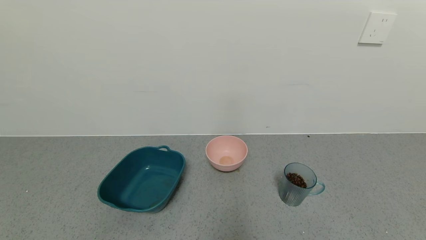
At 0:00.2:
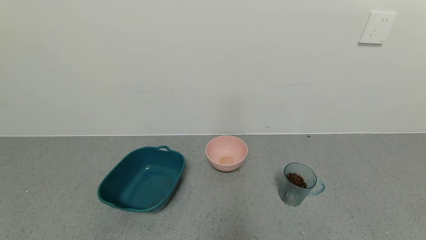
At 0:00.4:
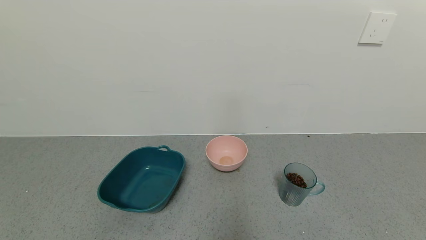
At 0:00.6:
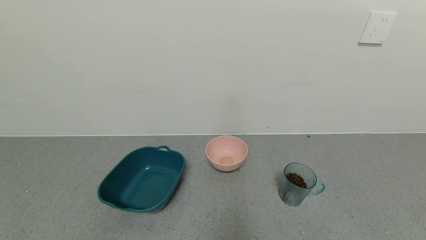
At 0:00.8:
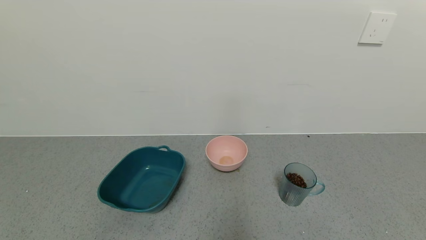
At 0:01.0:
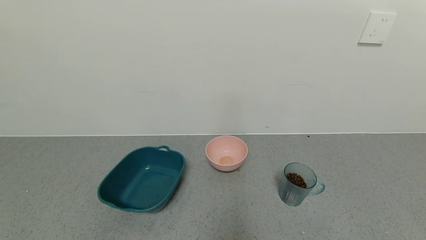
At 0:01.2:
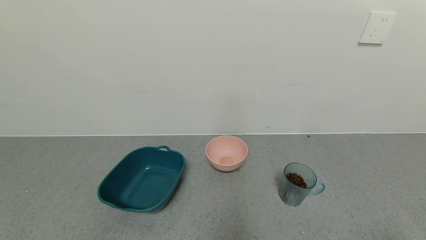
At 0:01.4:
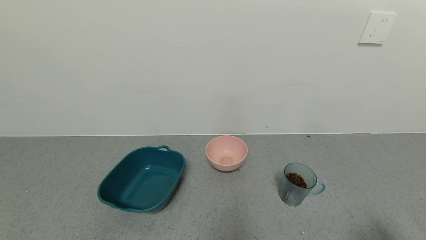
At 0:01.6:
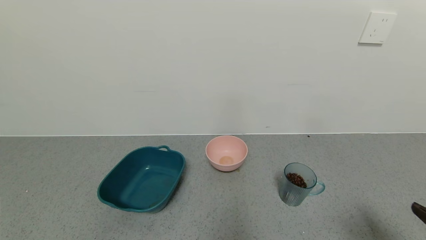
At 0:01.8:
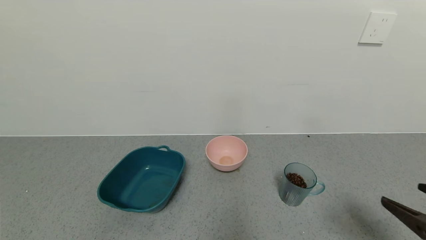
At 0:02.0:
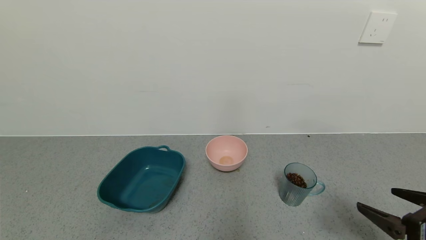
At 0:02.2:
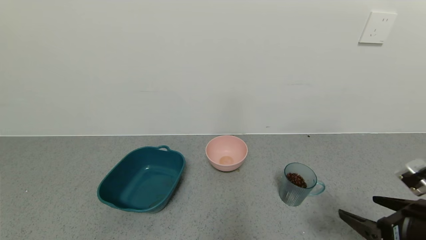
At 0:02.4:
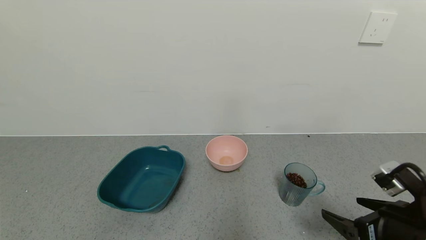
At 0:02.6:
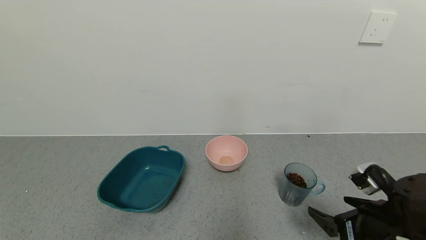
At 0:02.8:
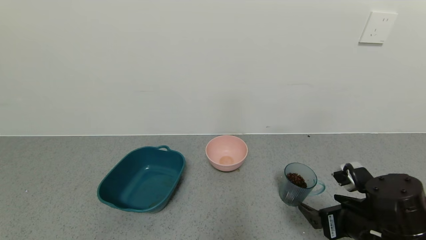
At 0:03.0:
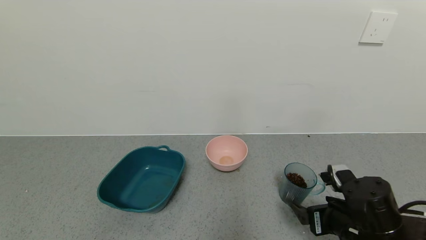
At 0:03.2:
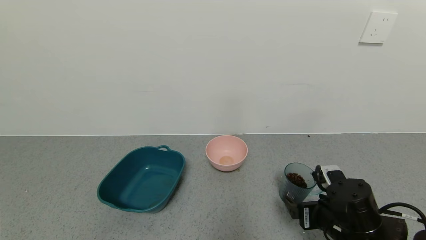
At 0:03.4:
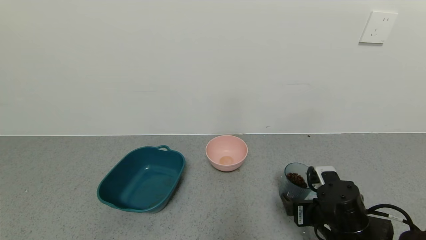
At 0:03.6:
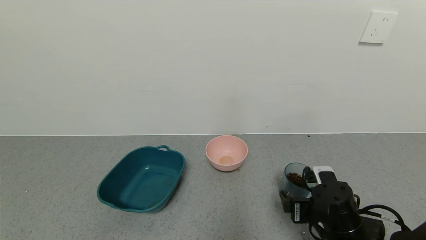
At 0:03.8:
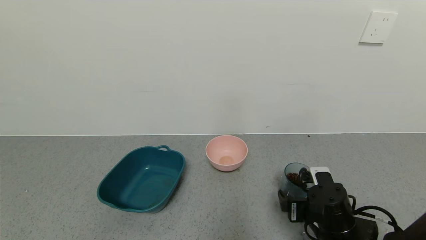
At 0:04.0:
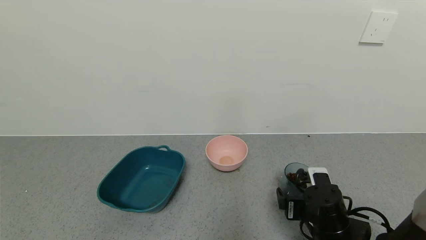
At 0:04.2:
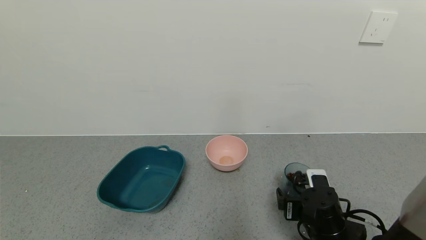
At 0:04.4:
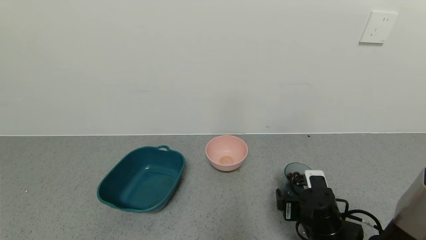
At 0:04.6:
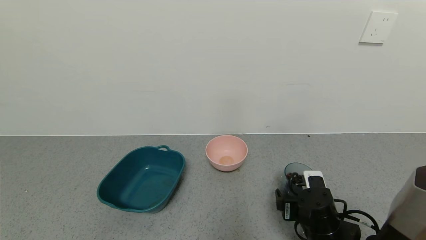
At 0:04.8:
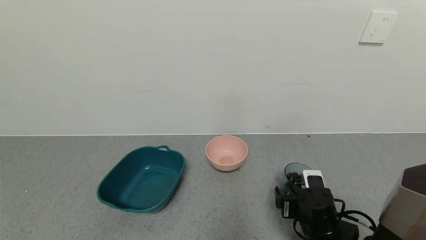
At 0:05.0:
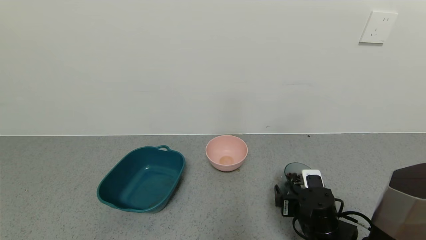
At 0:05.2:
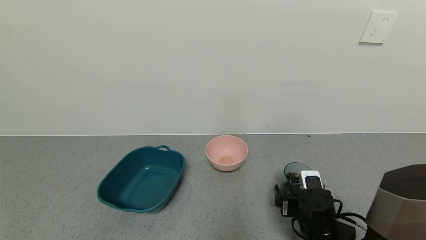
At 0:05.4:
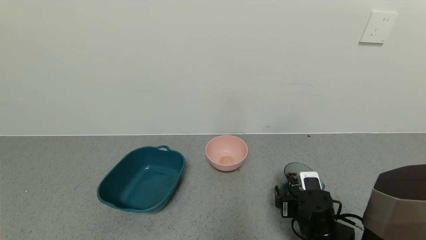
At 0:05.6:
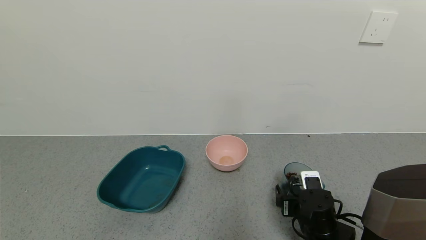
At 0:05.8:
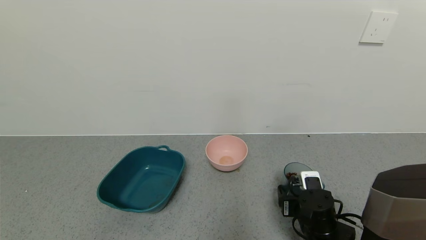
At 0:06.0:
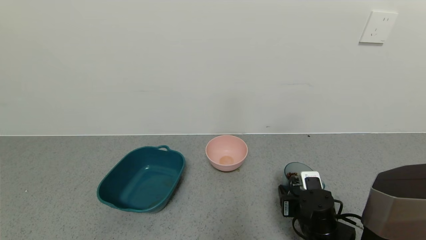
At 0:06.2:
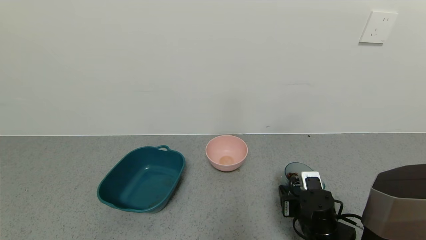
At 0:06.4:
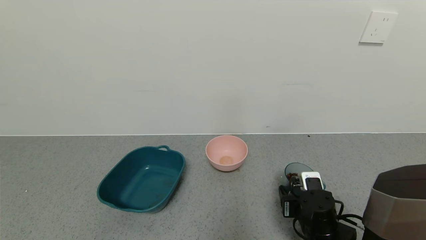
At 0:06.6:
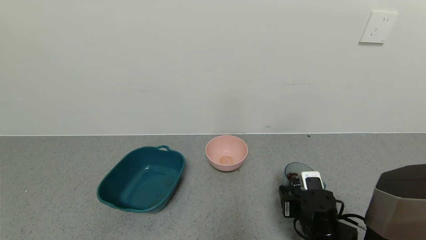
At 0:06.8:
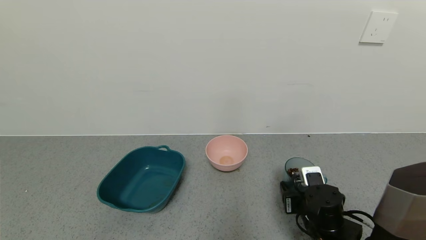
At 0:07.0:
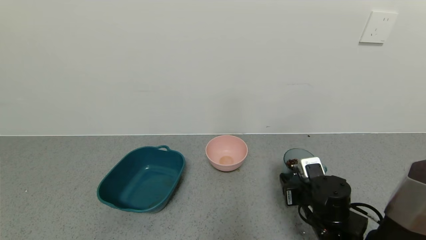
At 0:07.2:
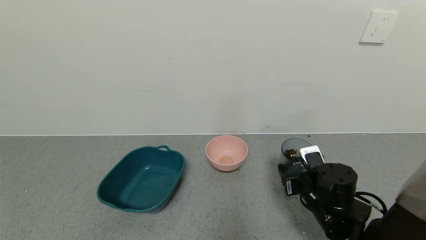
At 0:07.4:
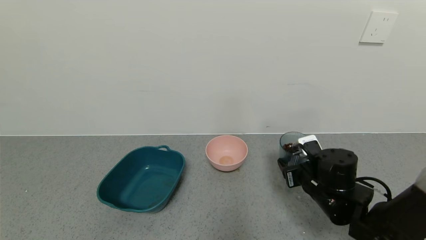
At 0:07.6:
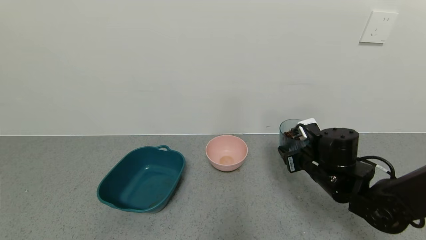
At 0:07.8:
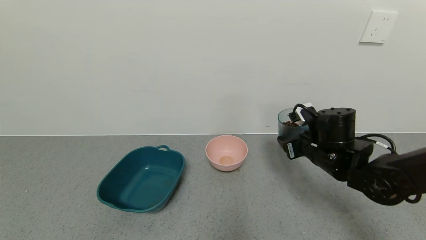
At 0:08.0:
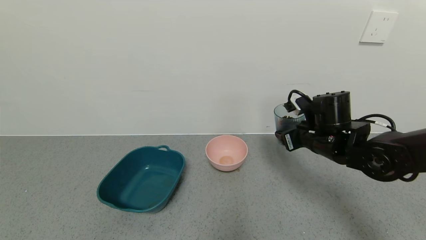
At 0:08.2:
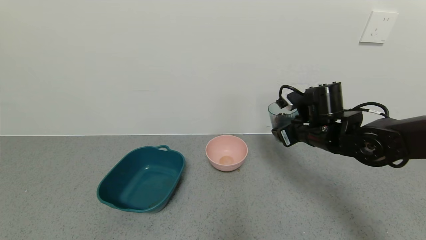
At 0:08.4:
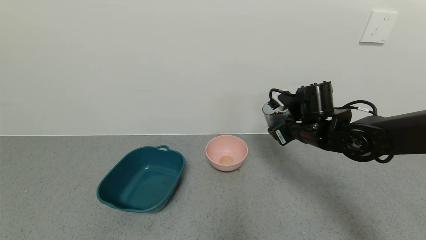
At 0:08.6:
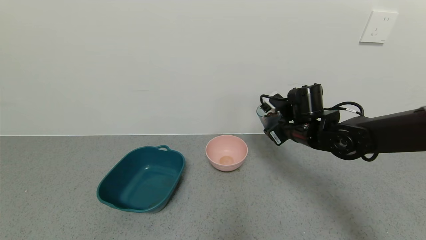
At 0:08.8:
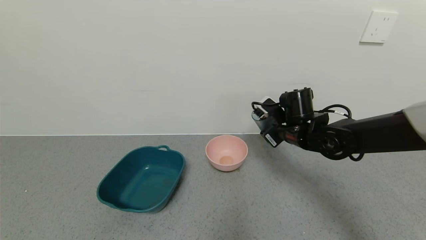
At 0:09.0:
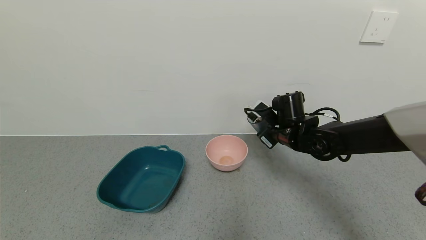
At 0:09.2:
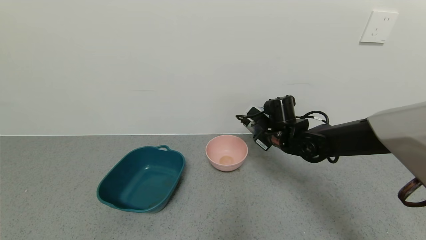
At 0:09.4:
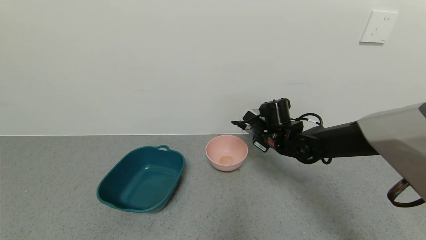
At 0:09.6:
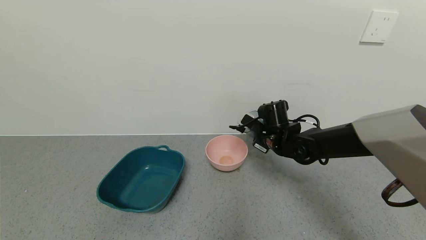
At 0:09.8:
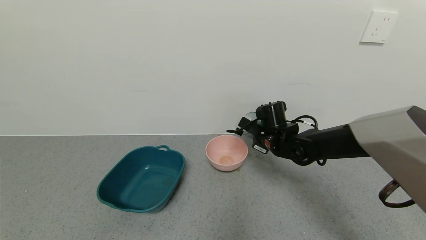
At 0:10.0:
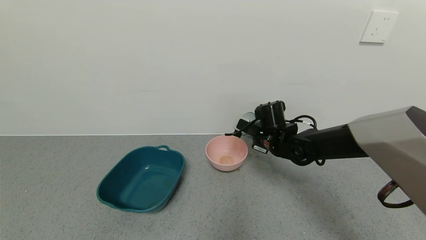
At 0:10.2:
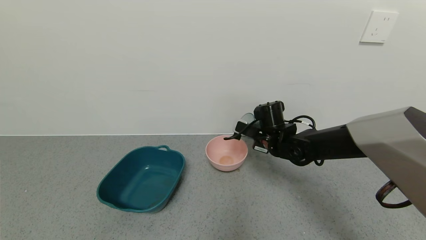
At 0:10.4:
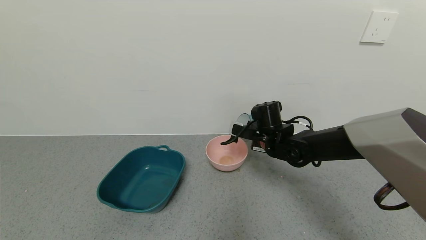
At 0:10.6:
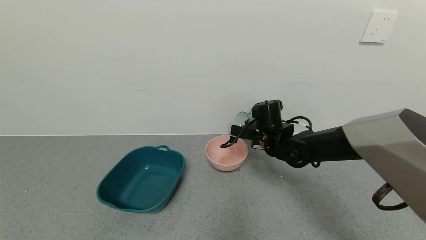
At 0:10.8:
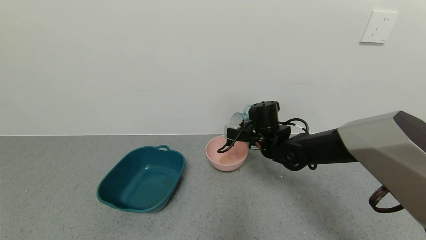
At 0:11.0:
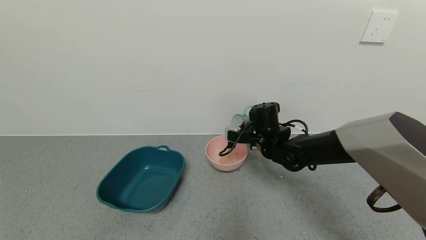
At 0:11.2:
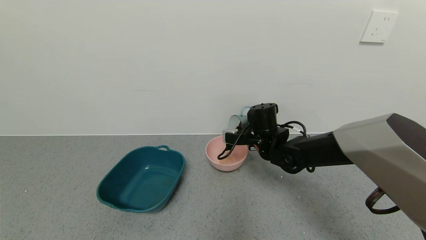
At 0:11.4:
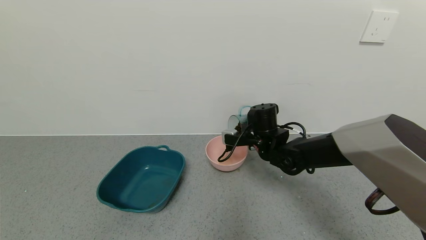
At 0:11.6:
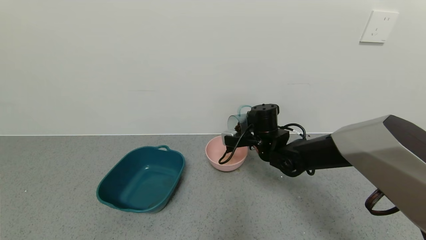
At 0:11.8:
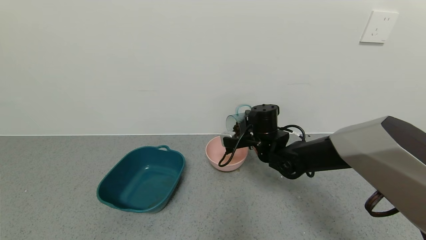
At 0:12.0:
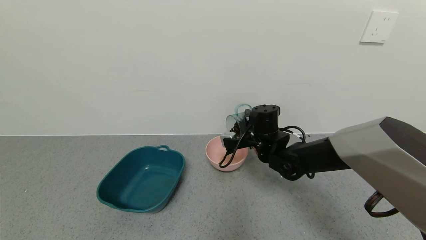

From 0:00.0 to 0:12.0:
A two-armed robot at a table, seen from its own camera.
Task of the whole recording: use a gripper to pick up the cup and pour the solid into a bowl or tray.
Step, from 0:00.0 to 0:06.4: Grasp the glass of coffee beans with the right gripper.
From 0:00.0 to 0:01.6: The right gripper heads upward and forward, covering approximately 15 cm.
From 0:01.6 to 0:03.0: The right gripper moves to the left, forward and downward, about 20 cm.
From 0:03.0 to 0:04.4: The right gripper shifts approximately 5 cm downward.
From 0:04.4 to 0:06.0: The right gripper closes.
From 0:06.0 to 0:07.6: The right gripper goes some 10 cm upward and forward.
From 0:07.6 to 0:09.0: The right gripper goes about 10 cm forward and to the left.

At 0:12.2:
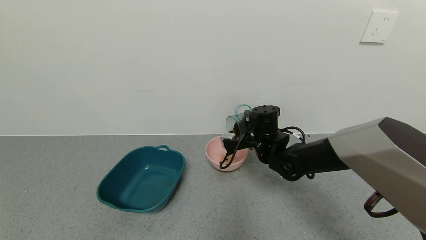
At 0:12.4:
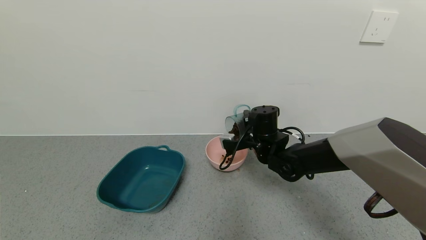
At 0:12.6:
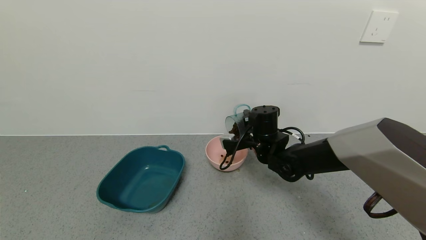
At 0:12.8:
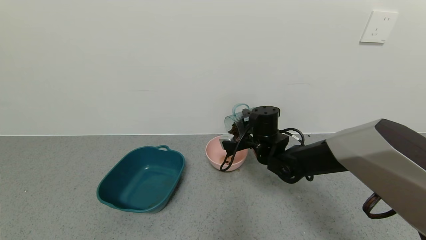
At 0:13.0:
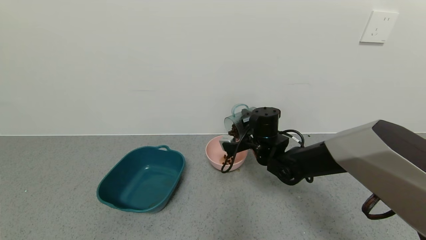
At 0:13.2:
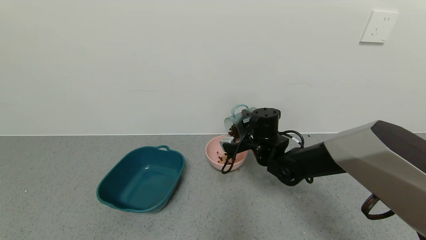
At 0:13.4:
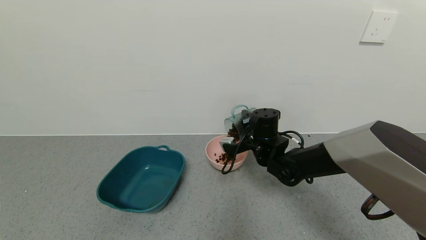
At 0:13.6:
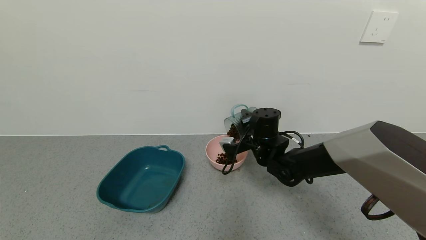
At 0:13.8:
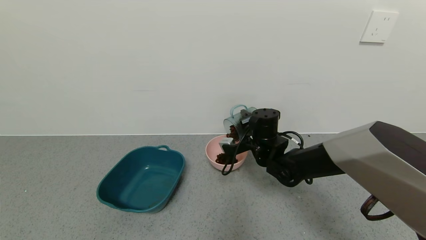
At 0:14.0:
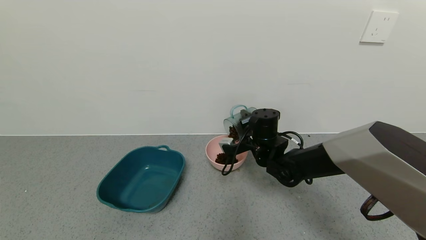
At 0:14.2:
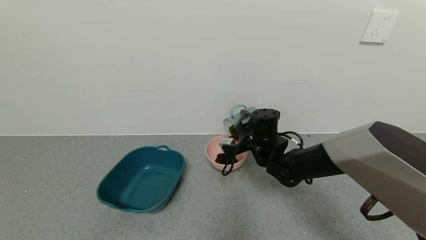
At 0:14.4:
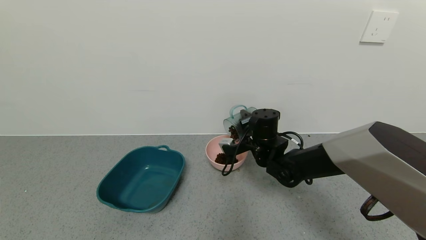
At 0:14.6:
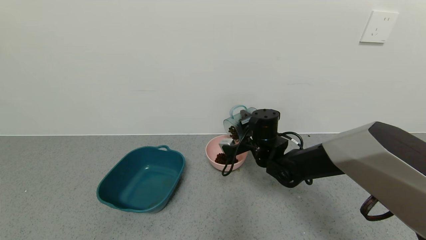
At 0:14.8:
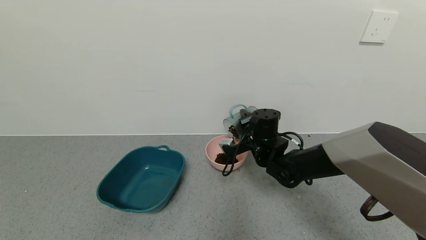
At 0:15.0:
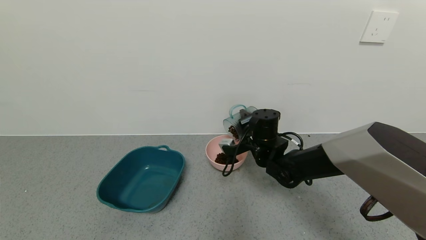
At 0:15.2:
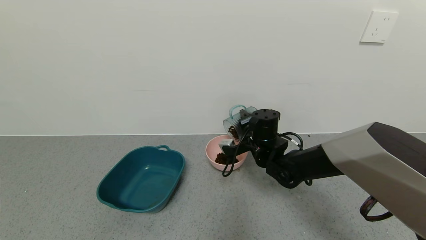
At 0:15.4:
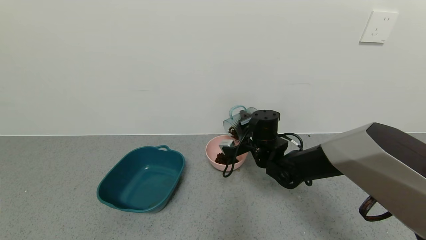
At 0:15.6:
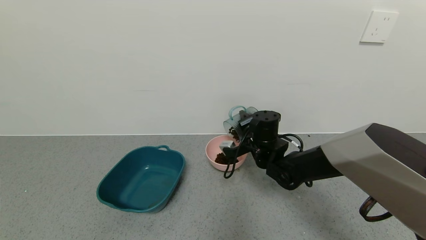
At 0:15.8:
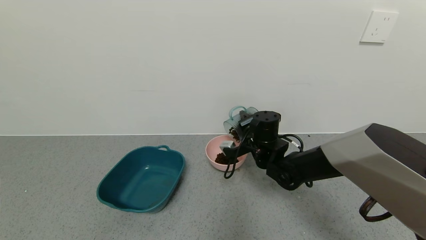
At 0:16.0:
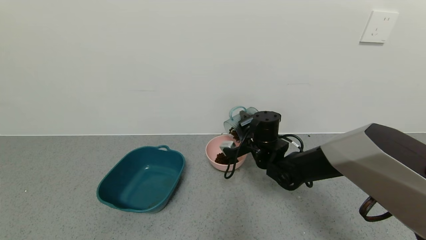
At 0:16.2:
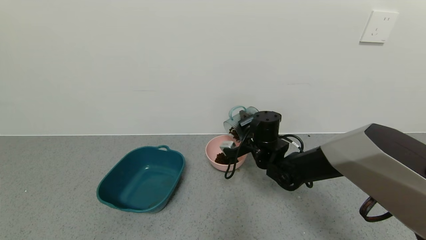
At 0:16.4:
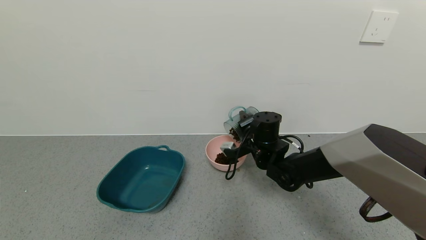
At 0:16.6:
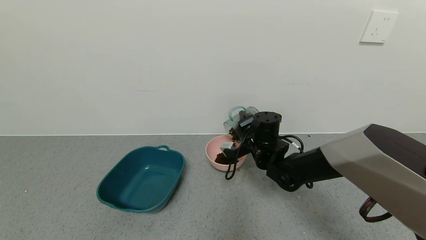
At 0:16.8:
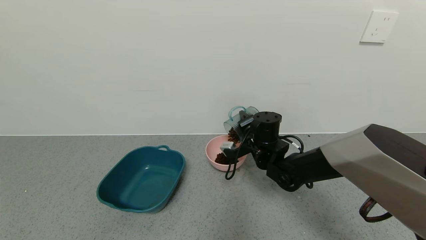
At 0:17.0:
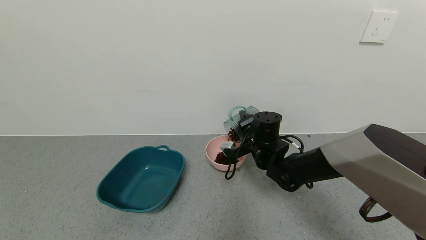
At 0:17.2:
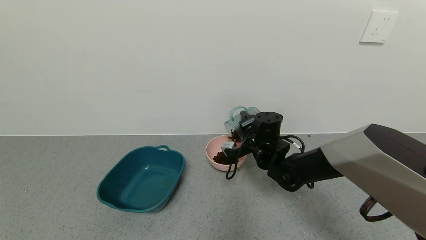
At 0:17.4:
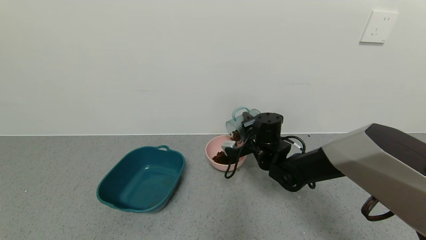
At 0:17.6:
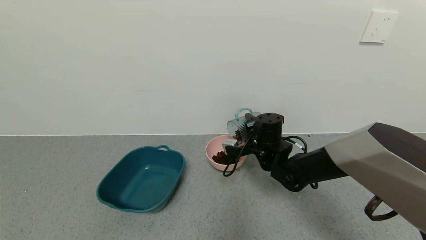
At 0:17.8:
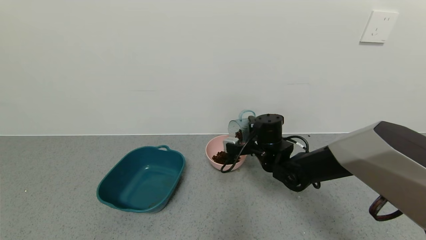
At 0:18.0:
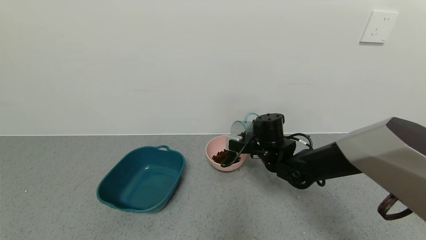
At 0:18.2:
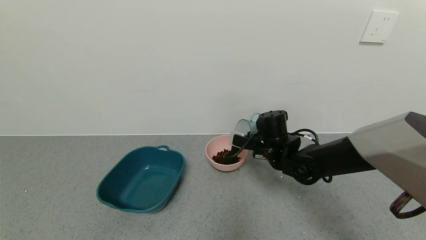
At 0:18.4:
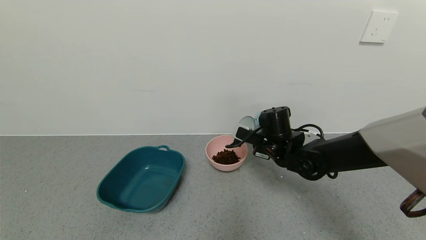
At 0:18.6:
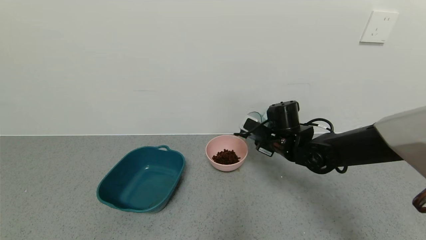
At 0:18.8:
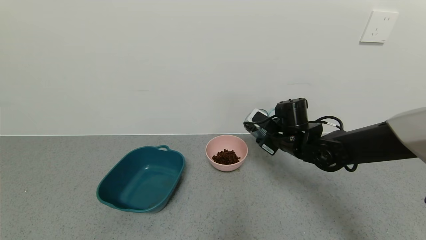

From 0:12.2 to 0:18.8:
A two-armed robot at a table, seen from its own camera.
Task of the whole recording: use a gripper to pick up the cup and pour the solid into a bowl or tray.
From 0:12.2 to 0:13.8: The grippers stay close to where they were, moving slightly.
From 0:13.8 to 0:15.4: The two grippers keep their place.
From 0:15.4 to 0:17.2: The two grippers keep their place.
From 0:17.2 to 0:18.8: The right gripper is displaced to the right by roughly 5 cm.
